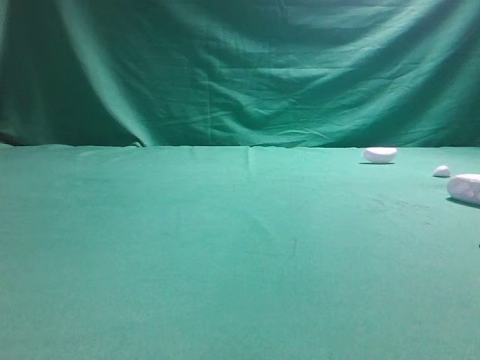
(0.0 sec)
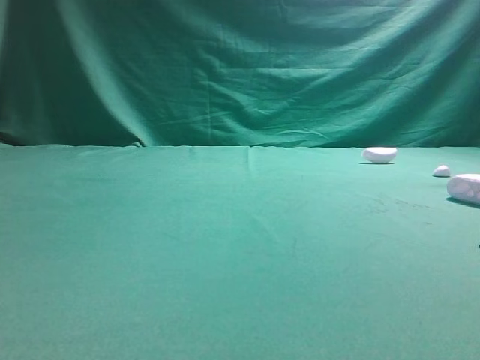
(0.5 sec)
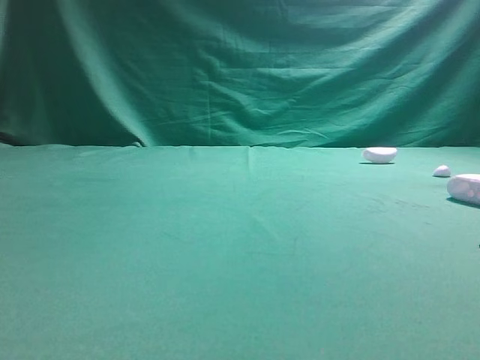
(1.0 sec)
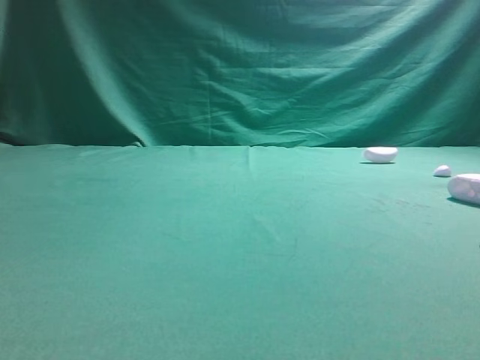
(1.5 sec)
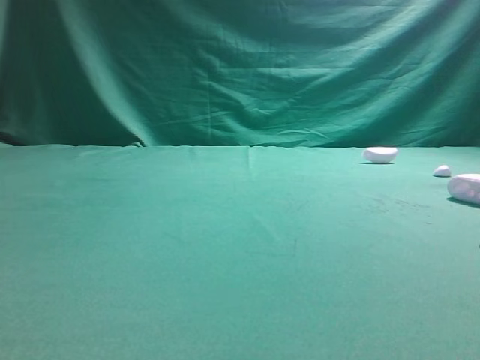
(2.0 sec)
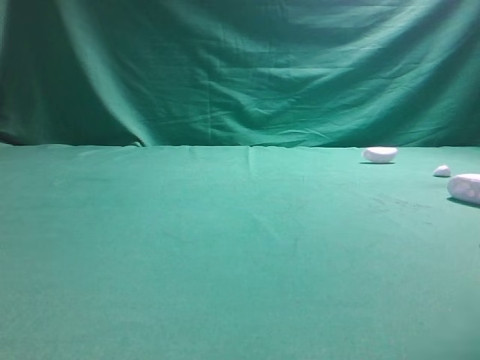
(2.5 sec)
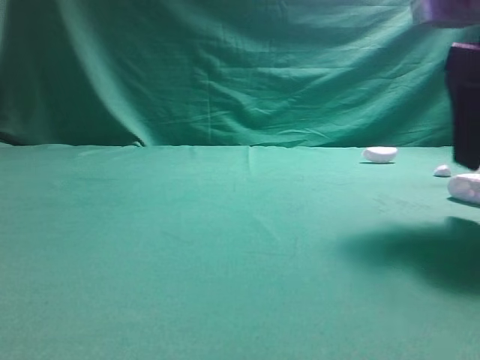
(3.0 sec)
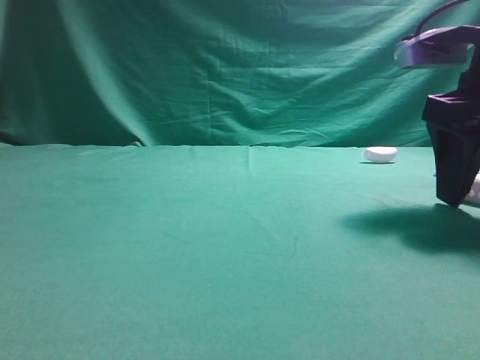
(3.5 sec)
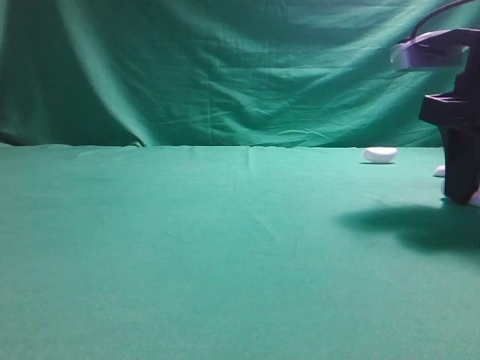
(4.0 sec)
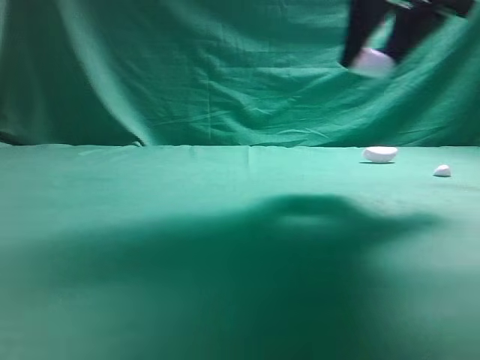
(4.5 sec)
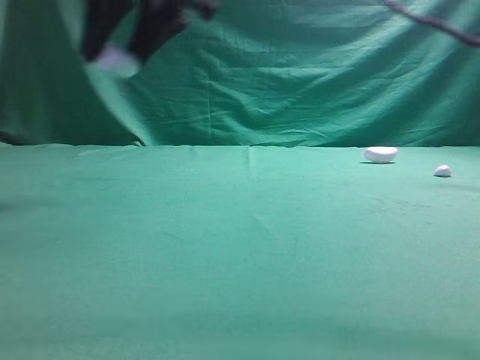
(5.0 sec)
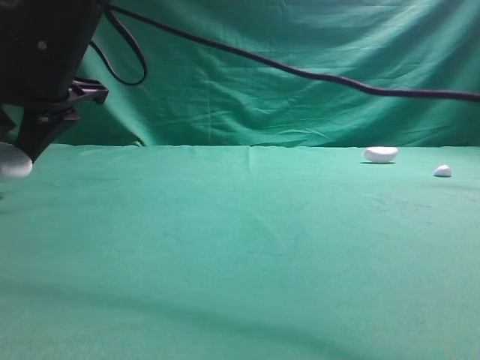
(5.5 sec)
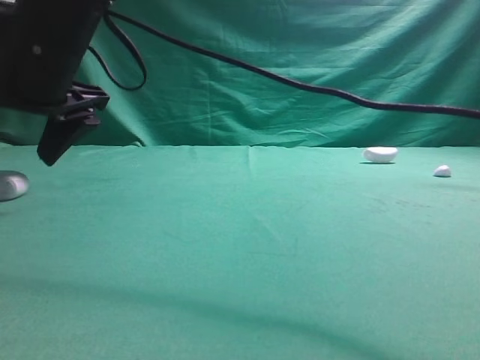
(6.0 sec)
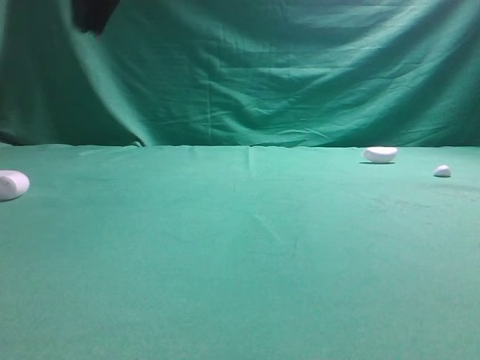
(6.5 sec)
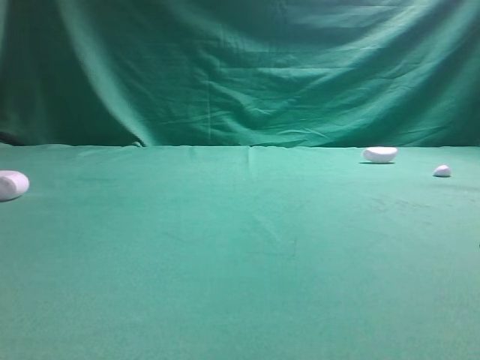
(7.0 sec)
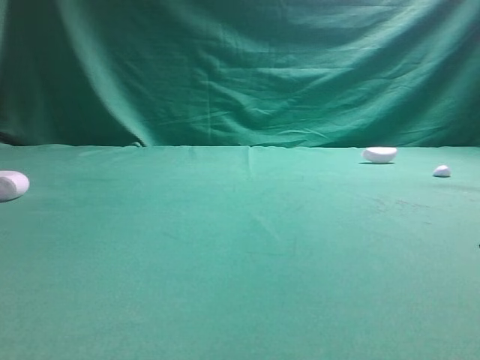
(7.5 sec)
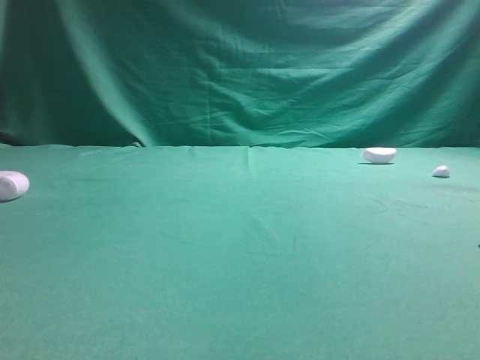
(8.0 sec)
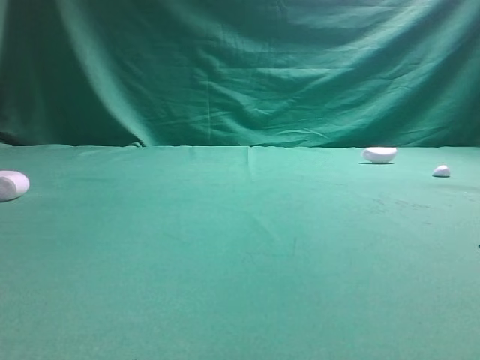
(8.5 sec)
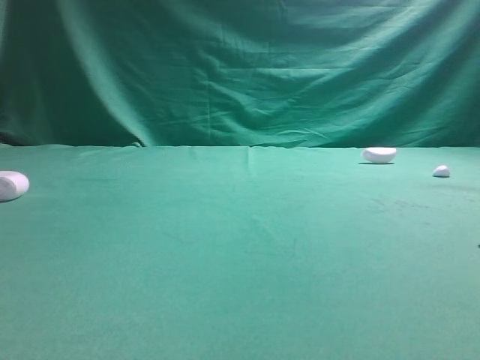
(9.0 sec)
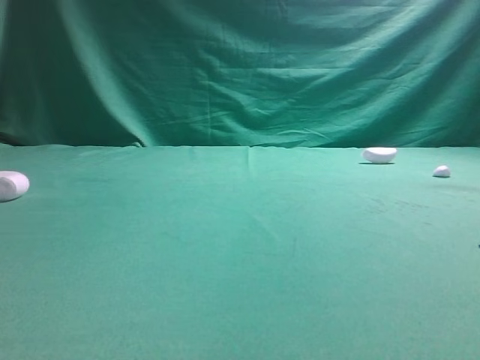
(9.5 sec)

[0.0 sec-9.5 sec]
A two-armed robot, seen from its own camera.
Step, 0.0 sec to 4.0 sec: Grasp the Bluetooth earphone case.
Step, 4.5 sec to 6.0 sec: Place bluetooth earphone case on the left side of the table.

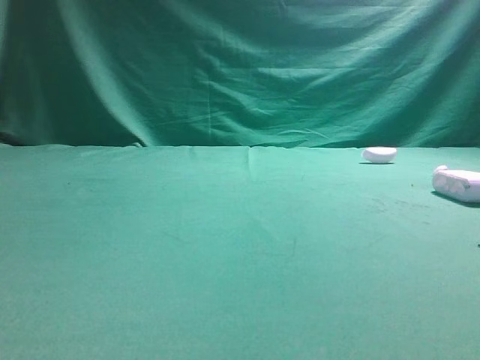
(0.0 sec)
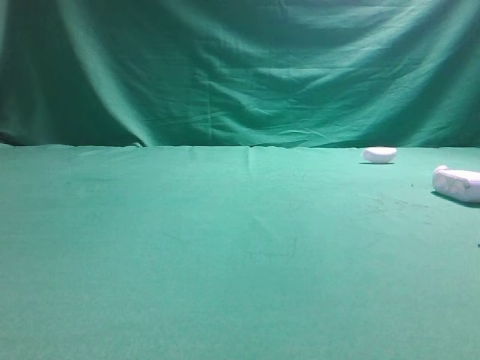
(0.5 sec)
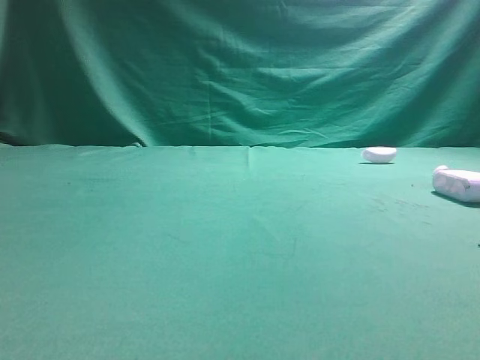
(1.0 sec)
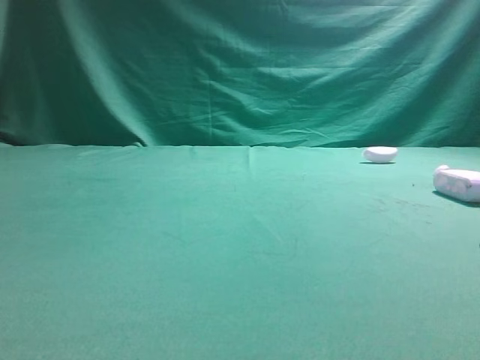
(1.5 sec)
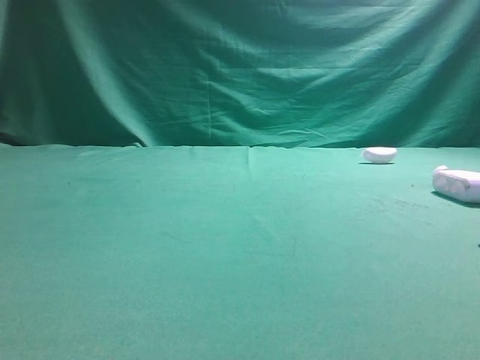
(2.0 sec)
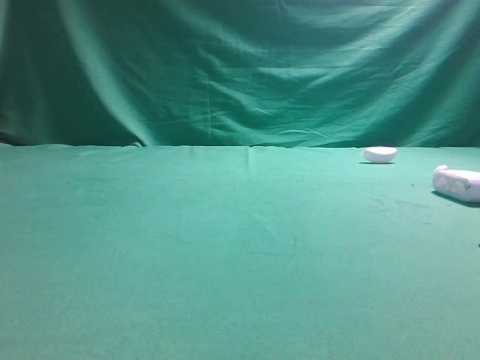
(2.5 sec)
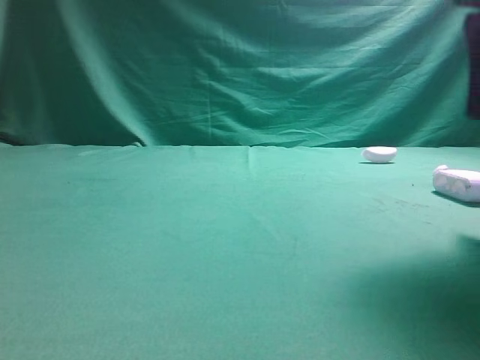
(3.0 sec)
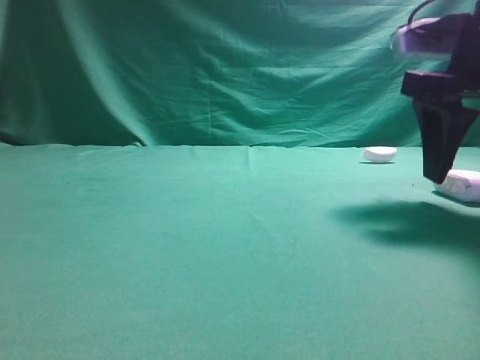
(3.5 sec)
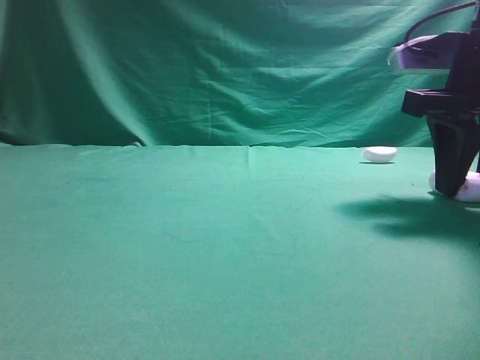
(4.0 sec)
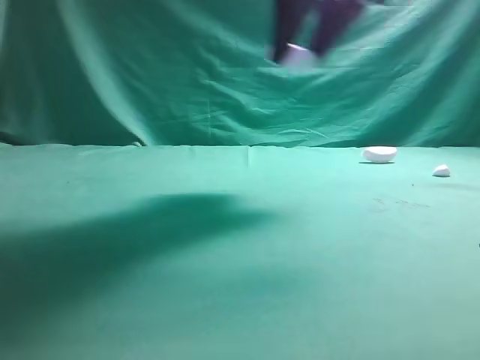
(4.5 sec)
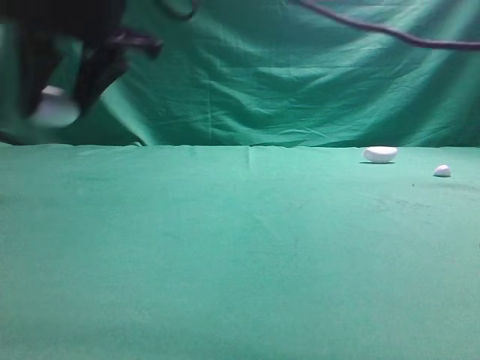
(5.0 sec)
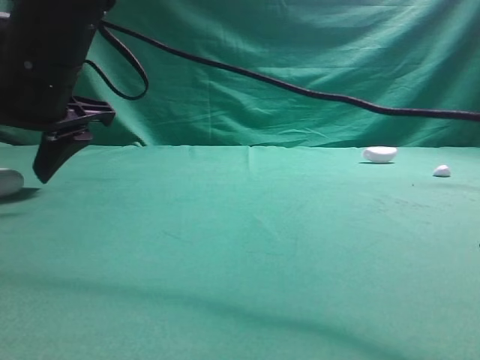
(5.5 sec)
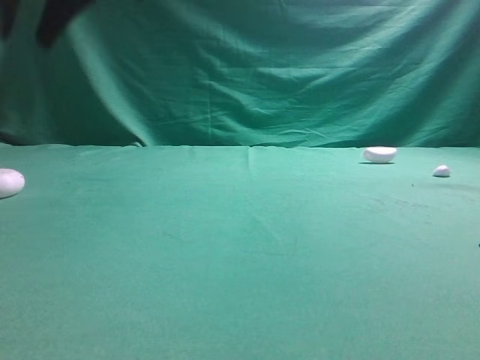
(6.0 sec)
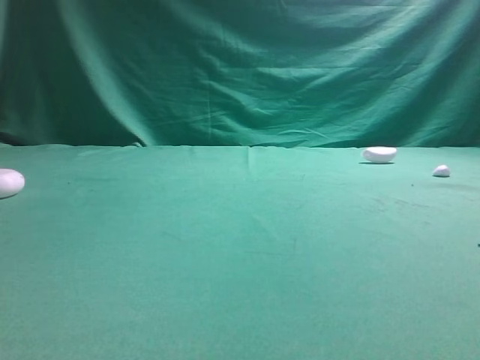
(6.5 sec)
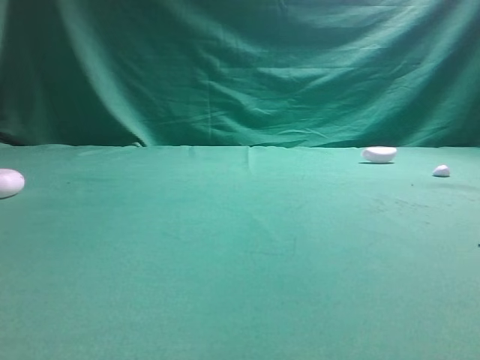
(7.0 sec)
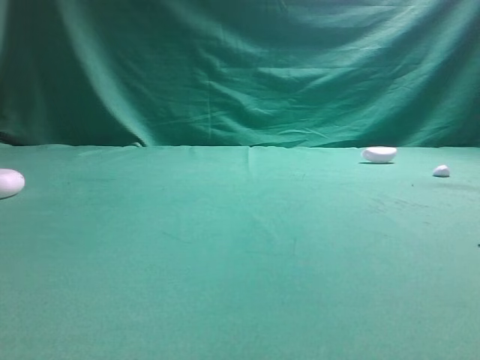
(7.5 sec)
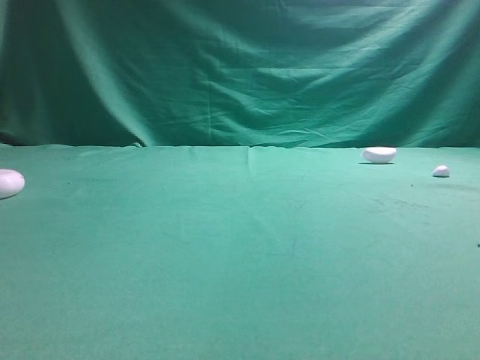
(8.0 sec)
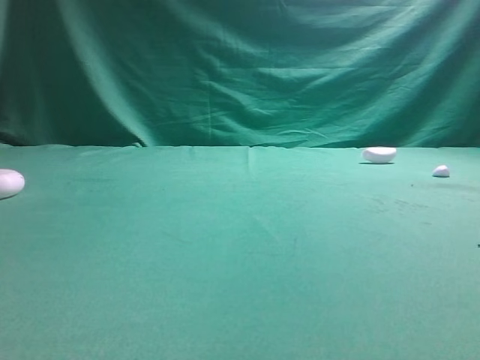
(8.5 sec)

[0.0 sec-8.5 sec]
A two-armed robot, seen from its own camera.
Step, 0.0 sec to 4.0 sec: Grasp the Bluetooth earphone case.
Step, 4.5 sec to 5.5 sec: Place bluetooth earphone case on the left side of the table.
